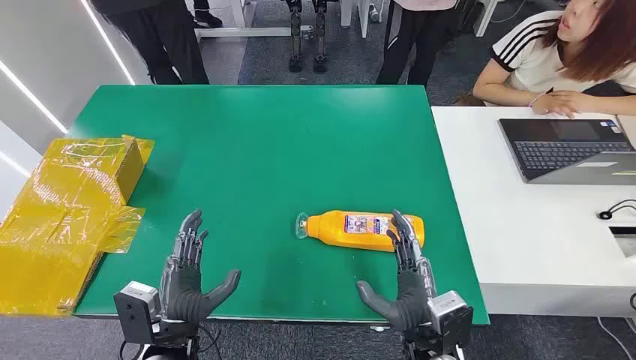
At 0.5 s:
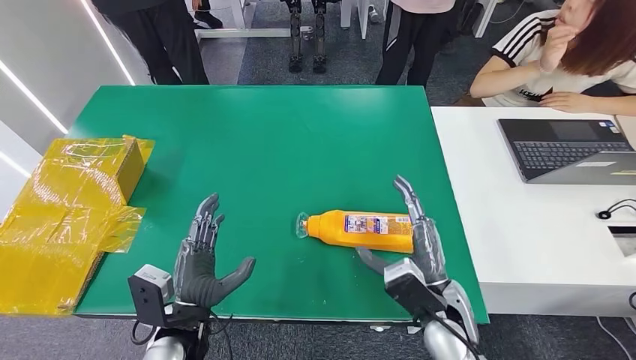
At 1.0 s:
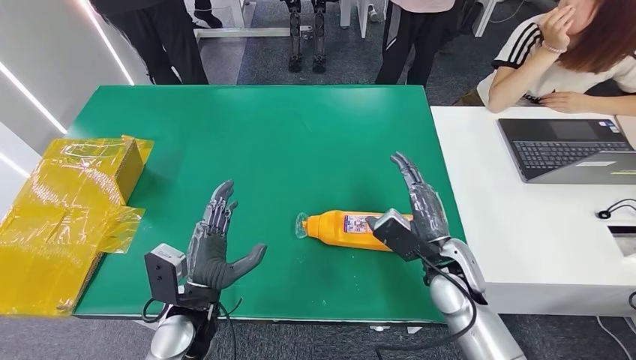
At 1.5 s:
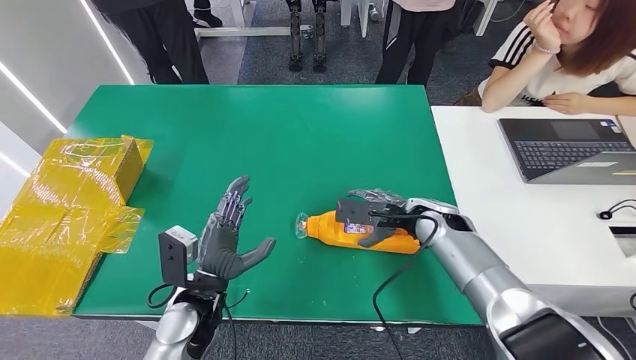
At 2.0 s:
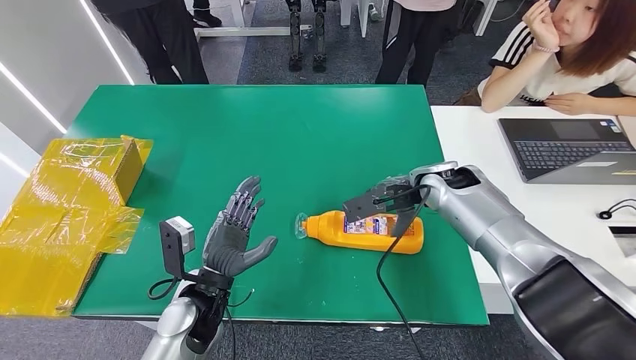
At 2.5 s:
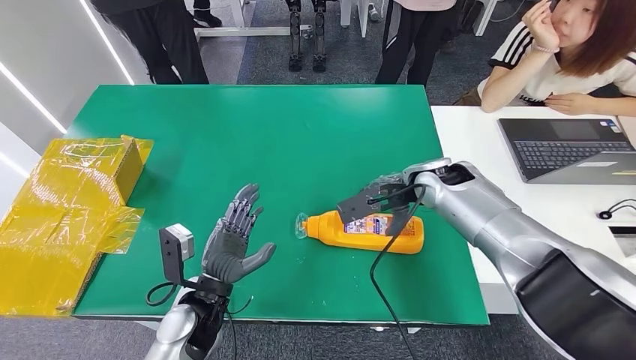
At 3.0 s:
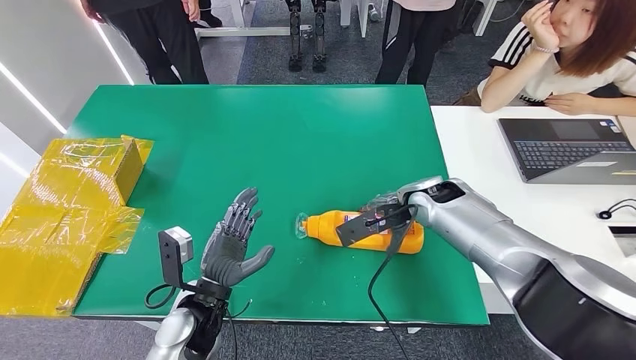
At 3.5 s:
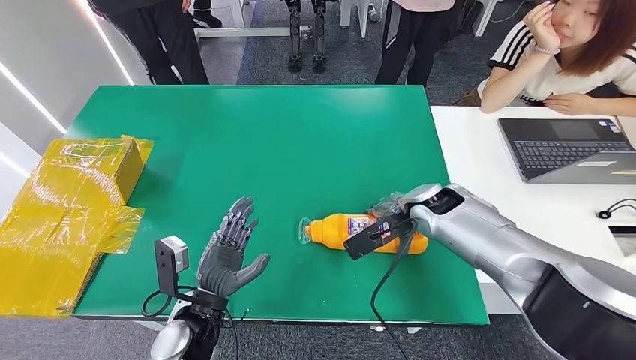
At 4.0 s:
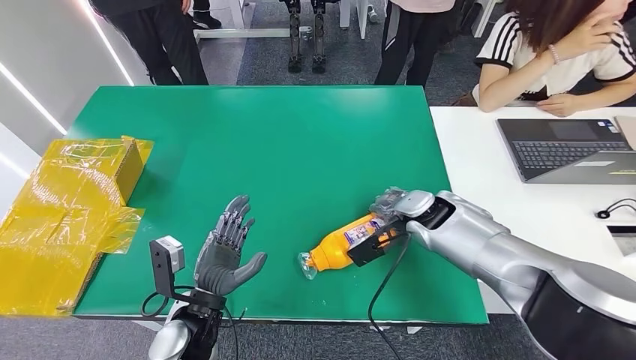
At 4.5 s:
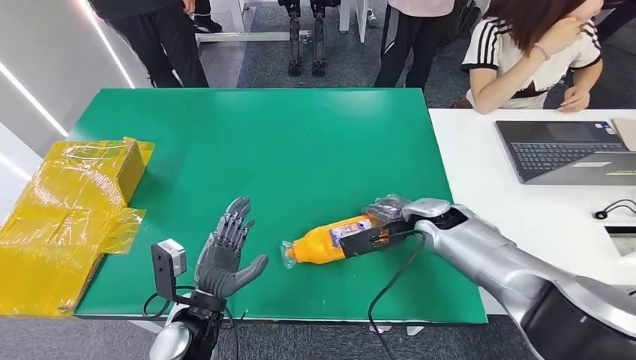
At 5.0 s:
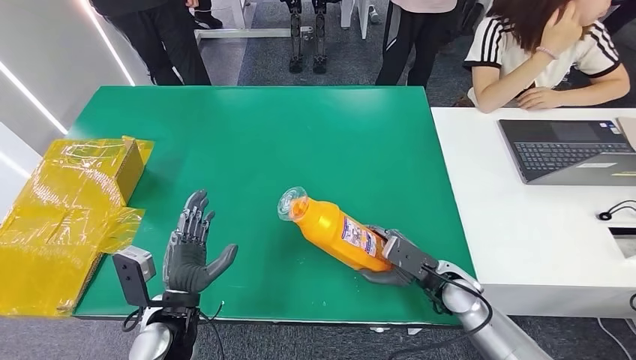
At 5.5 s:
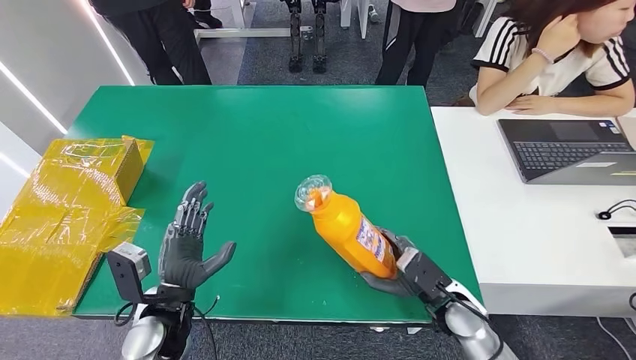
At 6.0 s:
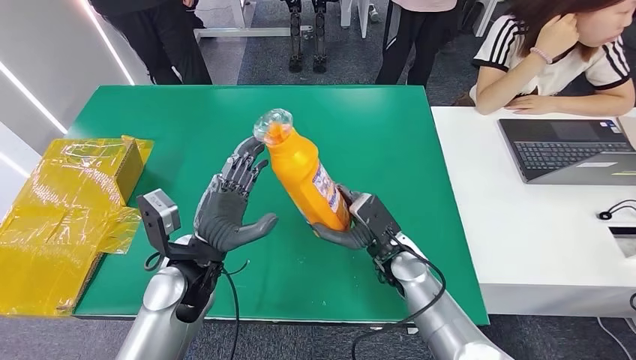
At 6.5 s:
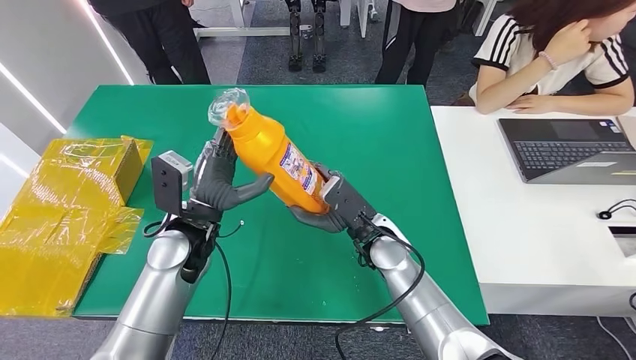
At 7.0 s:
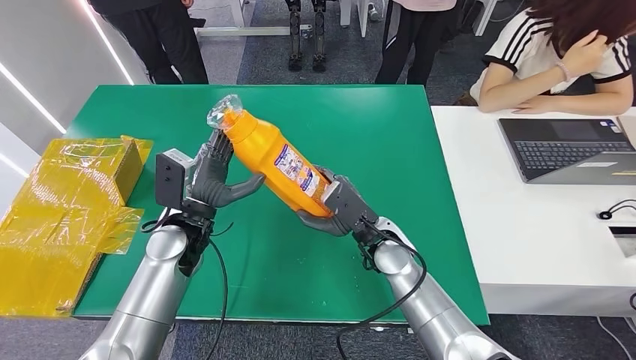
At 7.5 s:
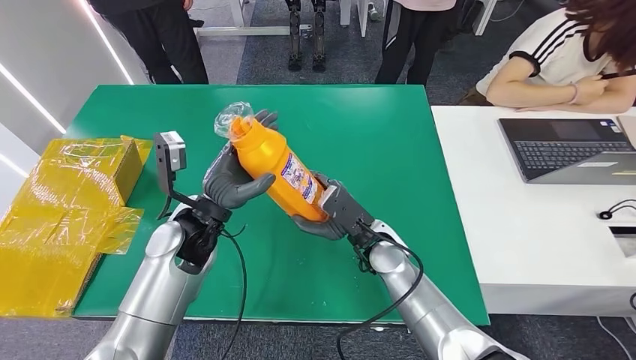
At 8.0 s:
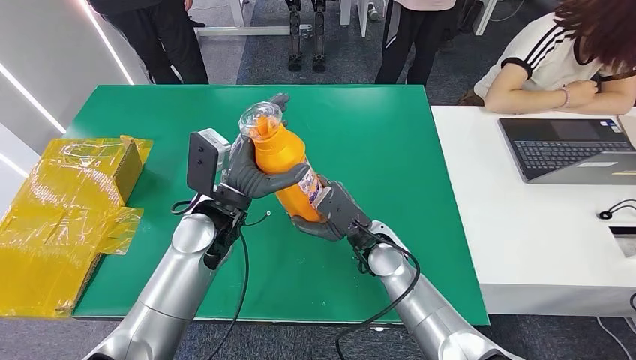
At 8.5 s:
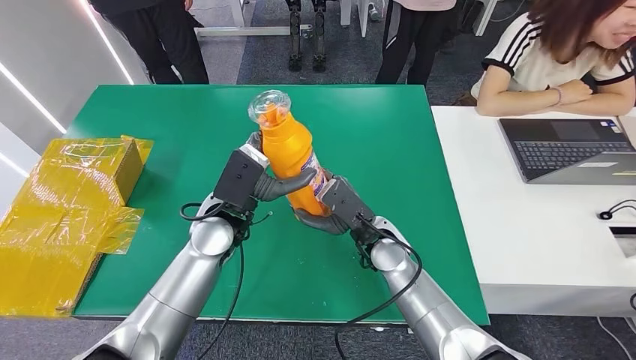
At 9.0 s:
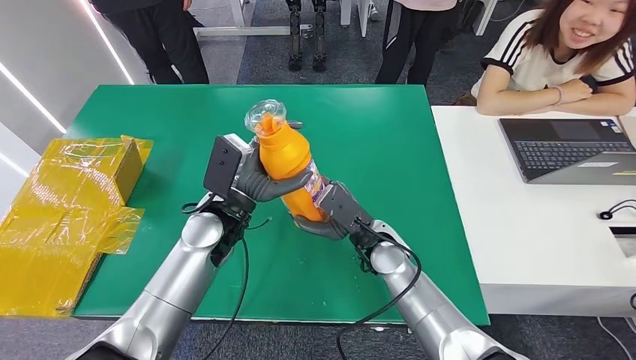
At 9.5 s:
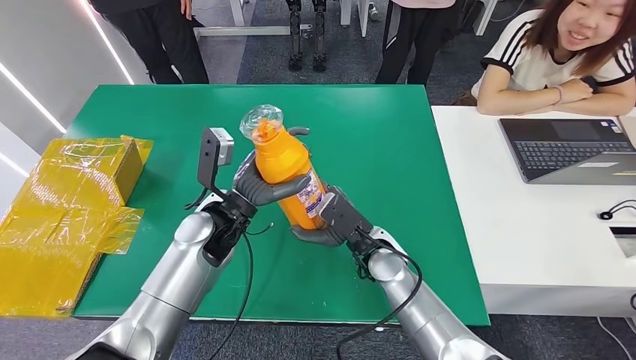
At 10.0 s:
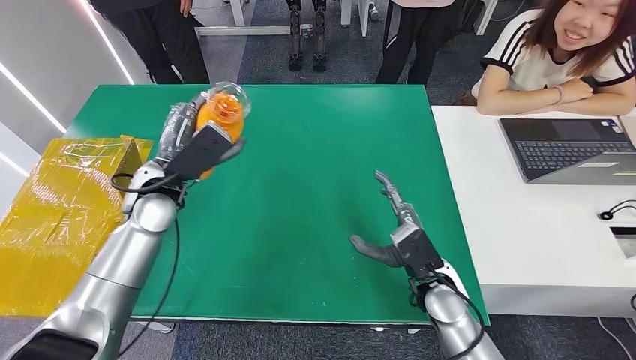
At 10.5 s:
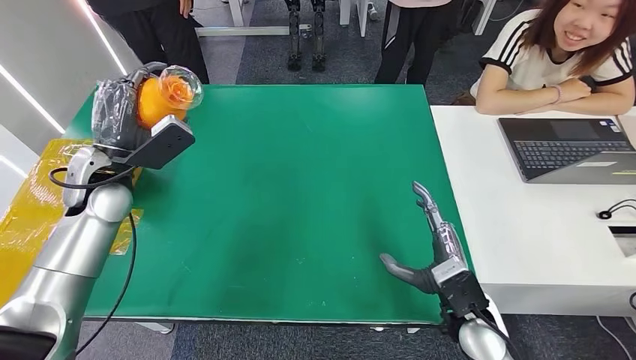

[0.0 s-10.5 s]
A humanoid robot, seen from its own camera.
Step, 0.0 to 5.0 s: Pick up the bottle from the table.
6.5 to 8.5 s: The left hand moves some 5 cm.

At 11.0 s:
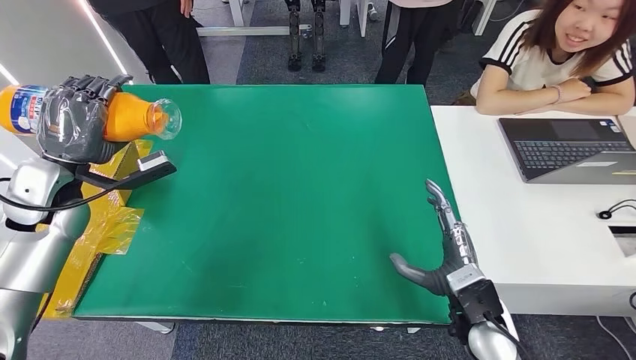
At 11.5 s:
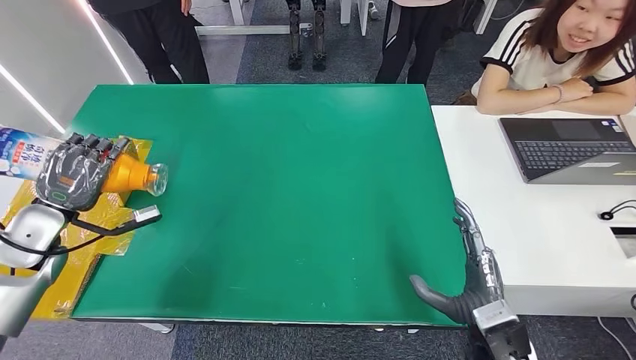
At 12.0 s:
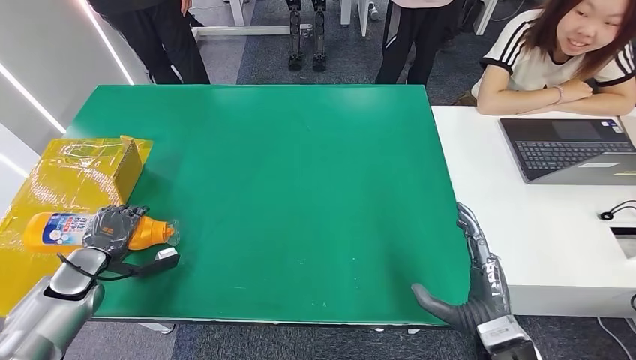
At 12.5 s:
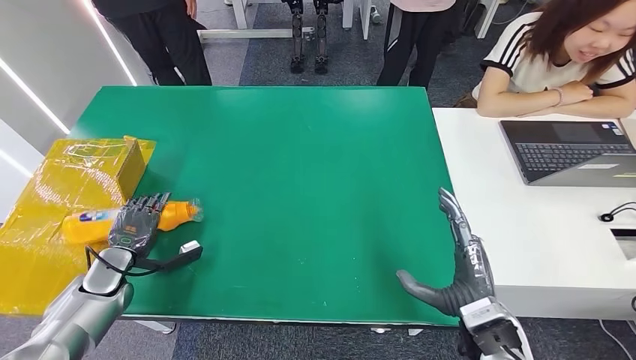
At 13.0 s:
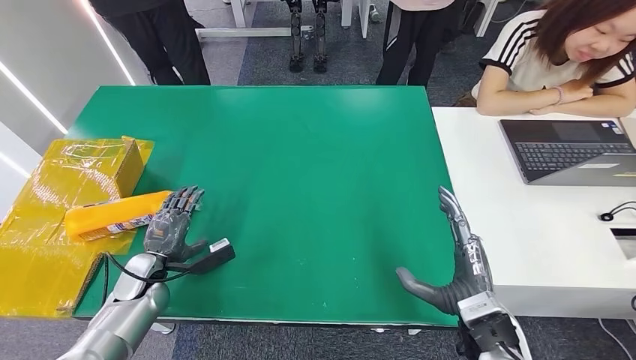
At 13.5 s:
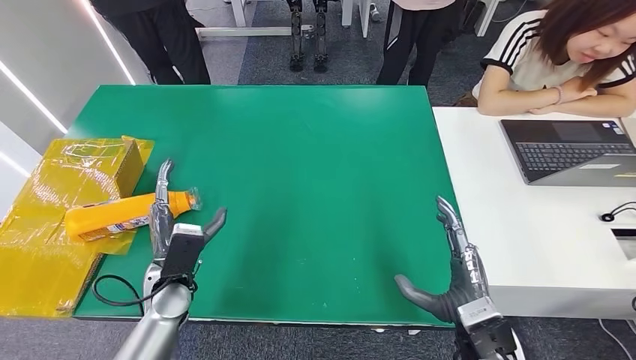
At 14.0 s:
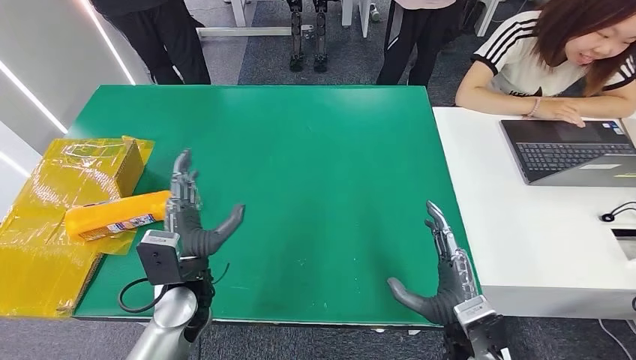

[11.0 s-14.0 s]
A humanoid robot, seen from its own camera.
Step, 11.0 to 14.0 s: Turn the bottle to the front side.
12.5 to 14.0 s: The left hand moves to the right and upward, roughly 20 cm.
